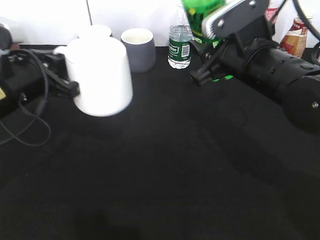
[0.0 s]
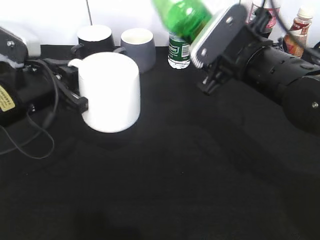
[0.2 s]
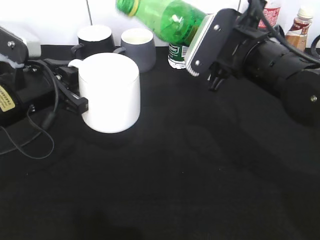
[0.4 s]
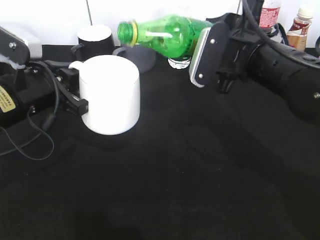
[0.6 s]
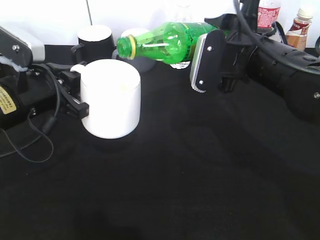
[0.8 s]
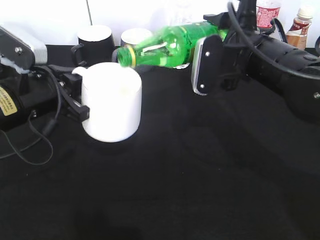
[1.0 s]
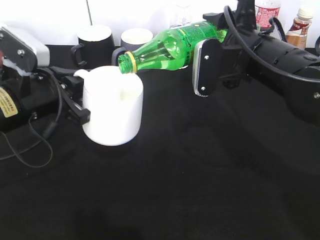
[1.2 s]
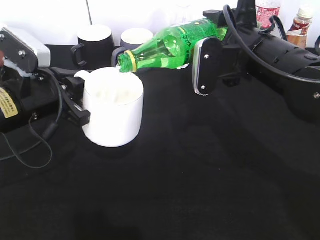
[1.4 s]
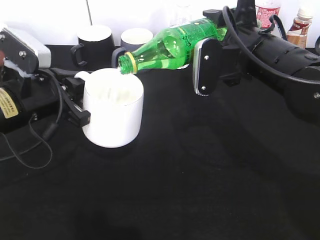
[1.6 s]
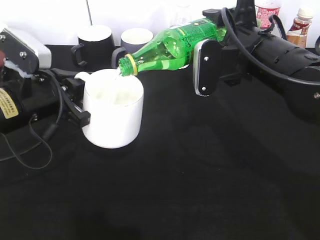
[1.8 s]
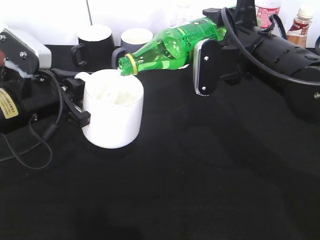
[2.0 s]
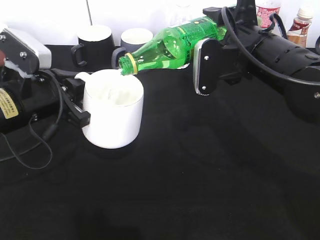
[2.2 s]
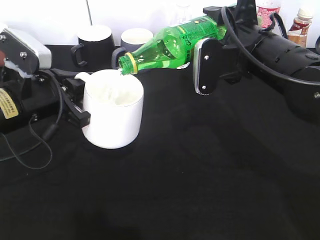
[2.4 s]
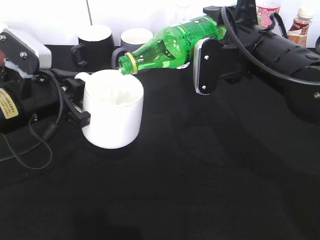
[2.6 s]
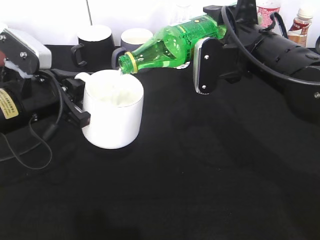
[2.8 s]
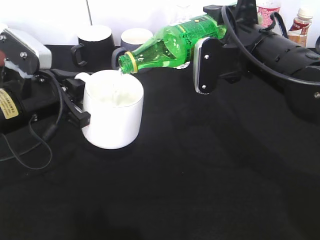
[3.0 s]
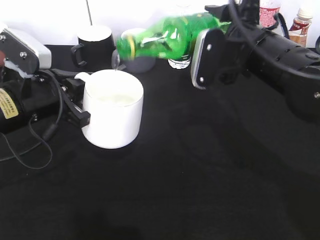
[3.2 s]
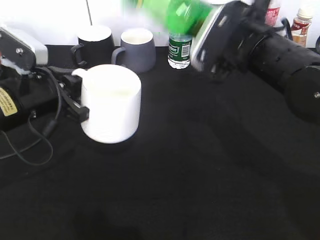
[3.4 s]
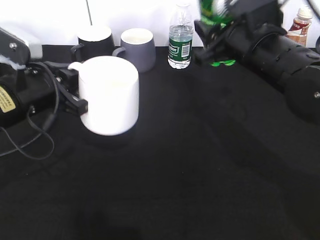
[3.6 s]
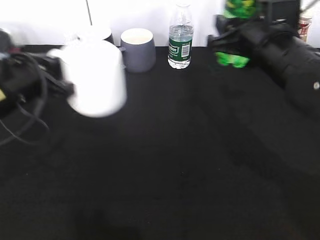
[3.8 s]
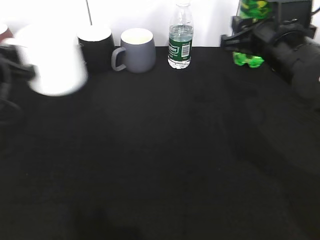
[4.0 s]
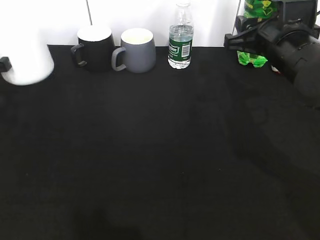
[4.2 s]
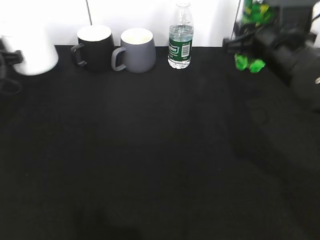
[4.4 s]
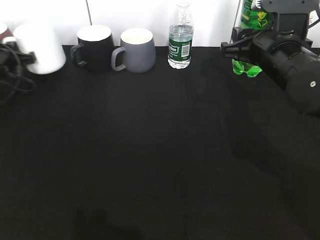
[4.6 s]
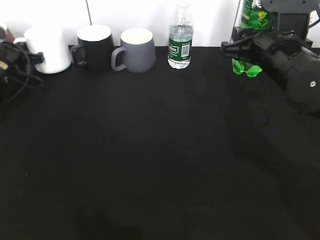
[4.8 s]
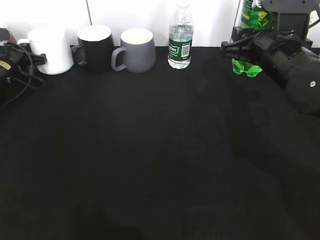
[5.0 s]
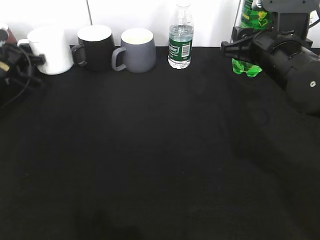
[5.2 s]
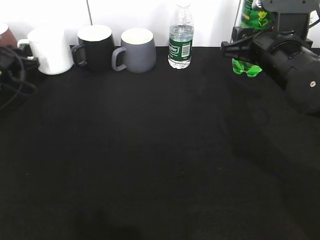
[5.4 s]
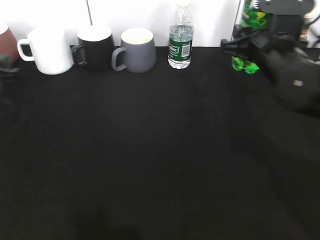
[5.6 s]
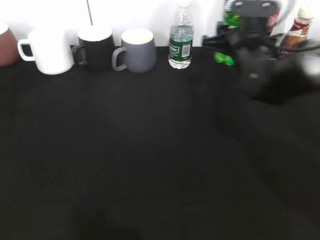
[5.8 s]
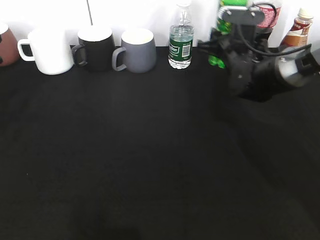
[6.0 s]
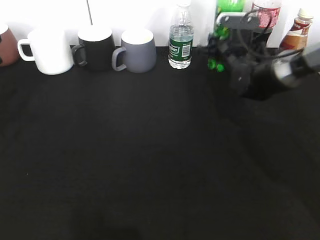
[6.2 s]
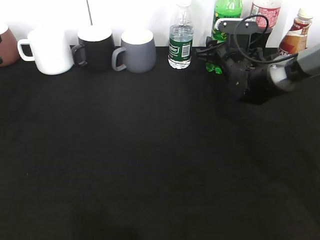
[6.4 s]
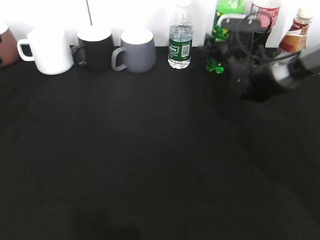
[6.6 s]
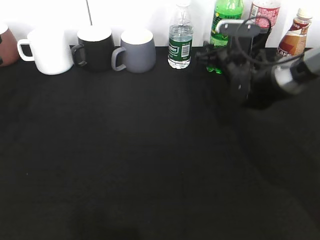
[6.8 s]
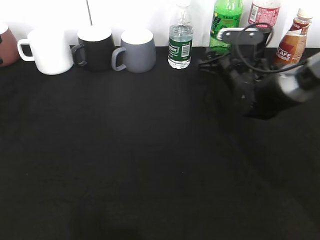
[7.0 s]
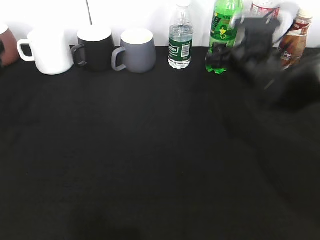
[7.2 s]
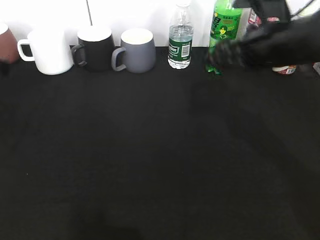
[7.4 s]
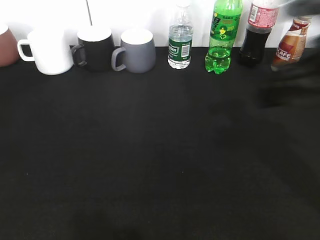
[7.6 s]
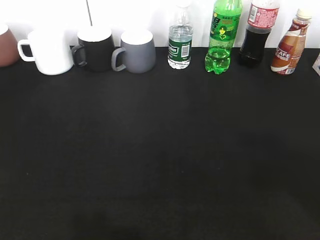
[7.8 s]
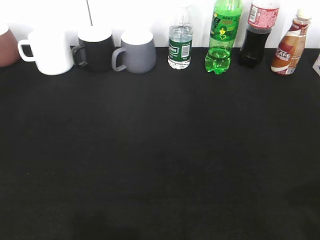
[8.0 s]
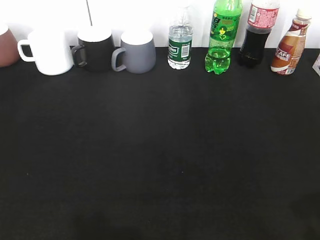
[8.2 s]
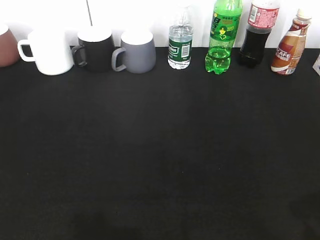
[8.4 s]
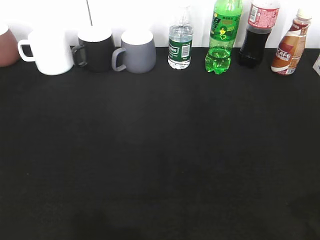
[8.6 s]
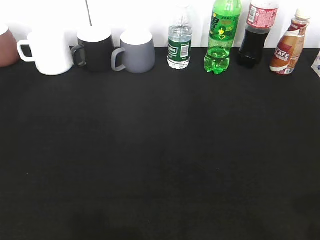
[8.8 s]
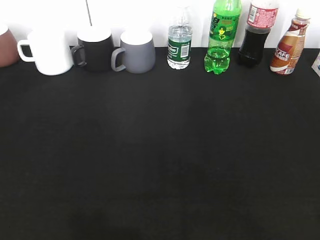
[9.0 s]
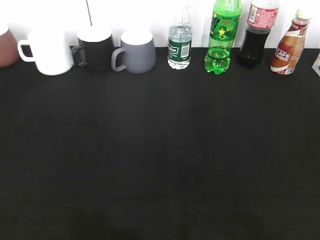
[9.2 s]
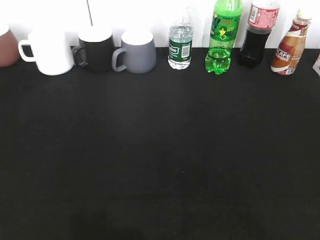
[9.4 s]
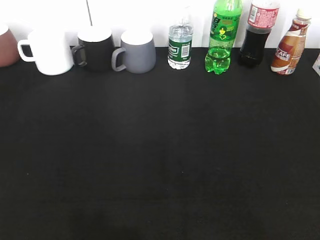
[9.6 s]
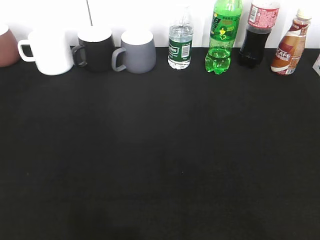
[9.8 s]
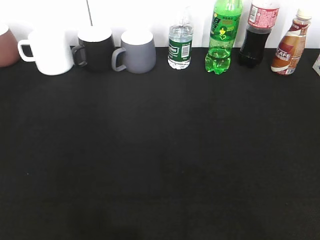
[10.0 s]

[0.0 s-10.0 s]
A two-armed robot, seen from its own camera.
Step, 0.0 to 3.2 s: Pour the sprite from bottle to cup with right gripper.
Step, 3.4 to 6.8 s: Place the sprite bottle on the table with right gripper.
1.4 to 2.8 s: The two grippers keep their place.
2.8 to 4.2 s: The left gripper moves to the left and forward, about 15 cm.
4.2 to 5.8 s: The left gripper goes forward and returns, approximately 15 cm each way, and opens its fingers; the right gripper heads forward and downward, covering approximately 10 cm.
5.8 to 7.2 s: The right gripper moves roughly 5 cm forward and comes back, and opens.
7.2 to 8.6 s: Both grippers move backward, some 30 cm. The left gripper opens up.
